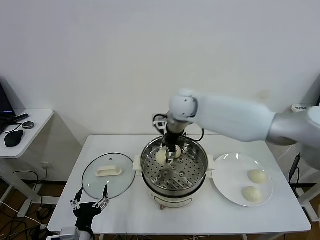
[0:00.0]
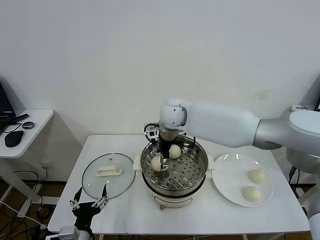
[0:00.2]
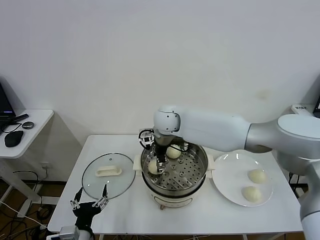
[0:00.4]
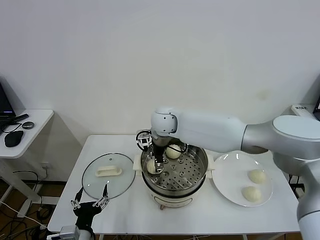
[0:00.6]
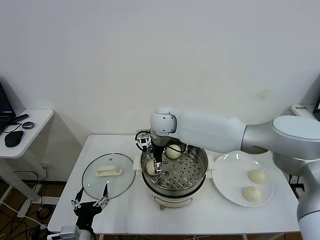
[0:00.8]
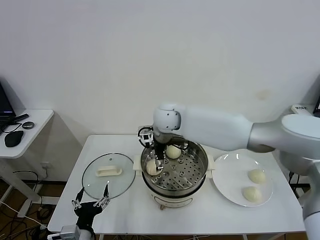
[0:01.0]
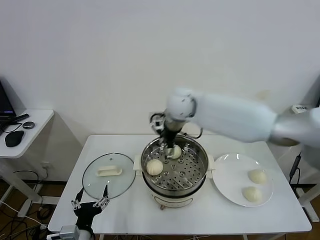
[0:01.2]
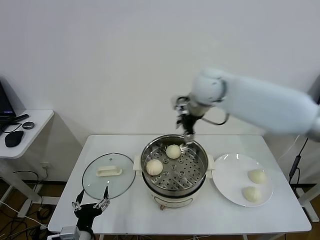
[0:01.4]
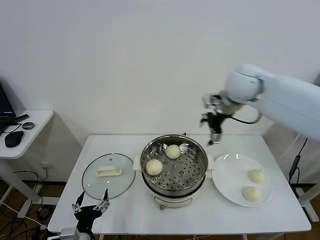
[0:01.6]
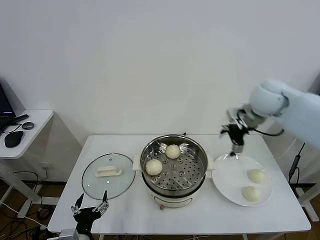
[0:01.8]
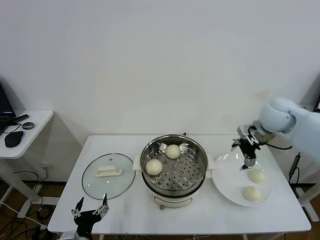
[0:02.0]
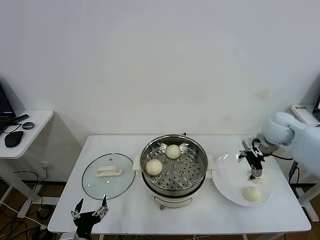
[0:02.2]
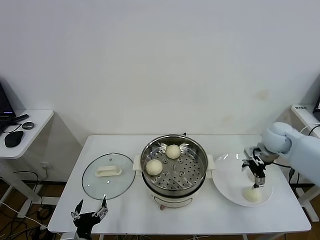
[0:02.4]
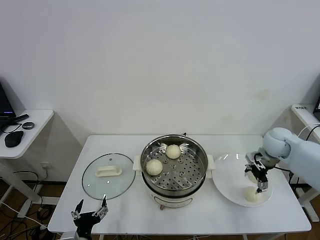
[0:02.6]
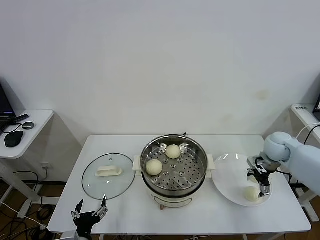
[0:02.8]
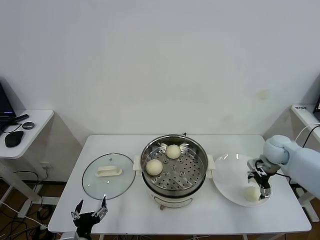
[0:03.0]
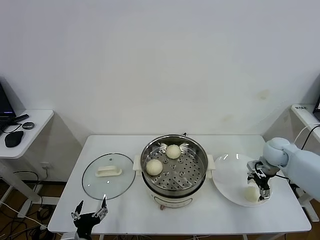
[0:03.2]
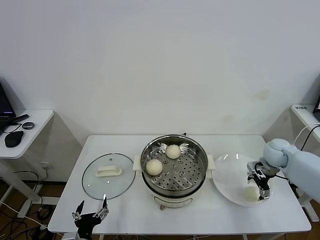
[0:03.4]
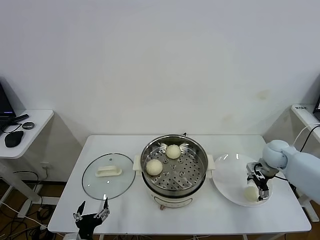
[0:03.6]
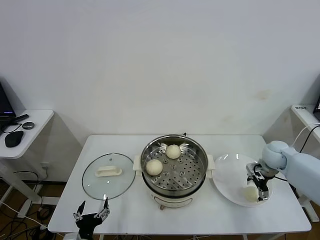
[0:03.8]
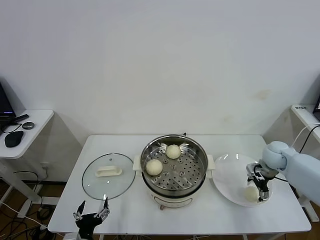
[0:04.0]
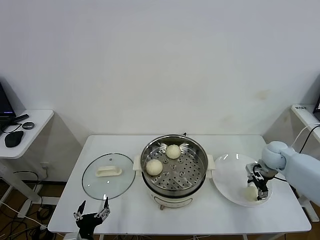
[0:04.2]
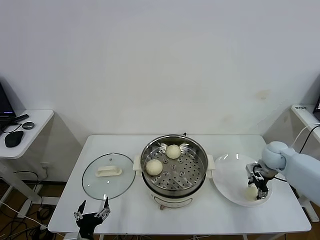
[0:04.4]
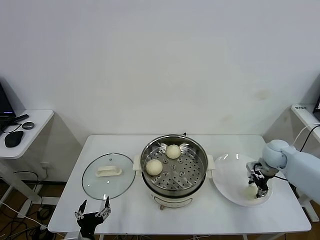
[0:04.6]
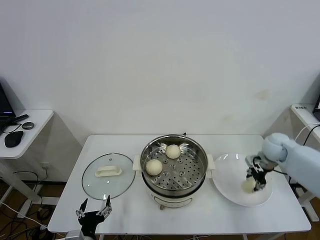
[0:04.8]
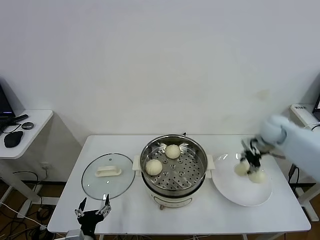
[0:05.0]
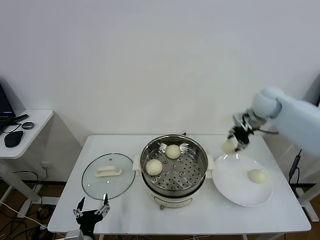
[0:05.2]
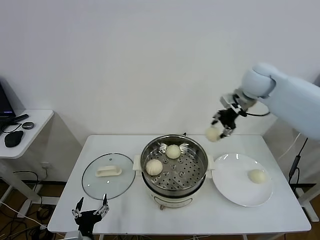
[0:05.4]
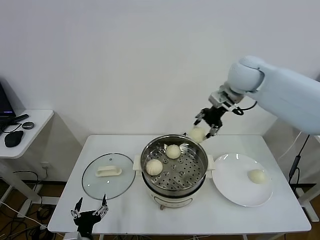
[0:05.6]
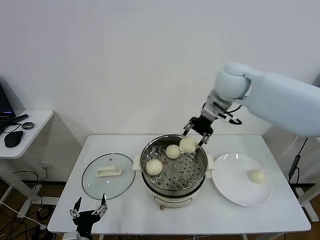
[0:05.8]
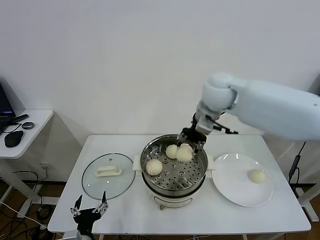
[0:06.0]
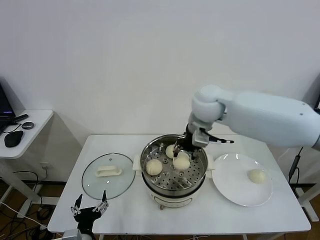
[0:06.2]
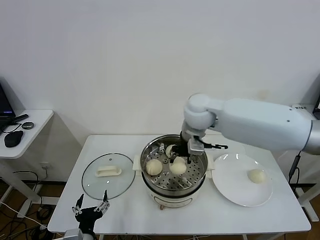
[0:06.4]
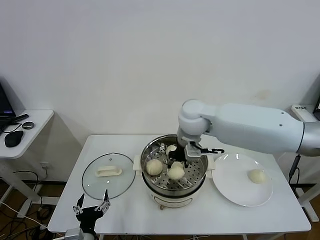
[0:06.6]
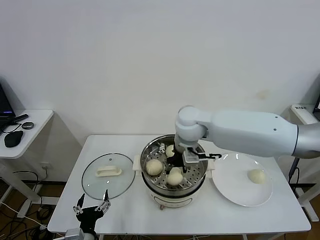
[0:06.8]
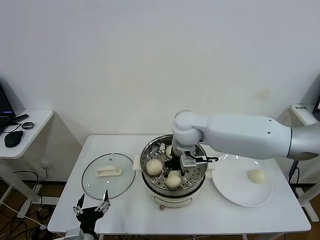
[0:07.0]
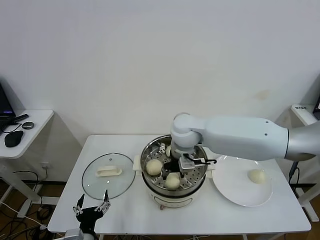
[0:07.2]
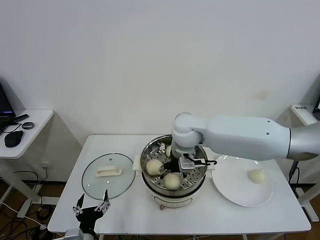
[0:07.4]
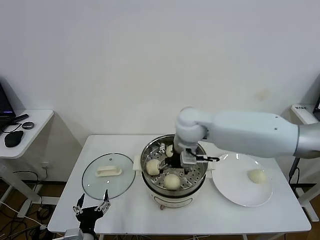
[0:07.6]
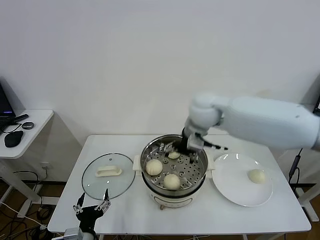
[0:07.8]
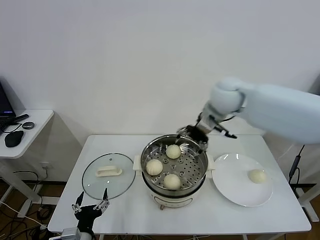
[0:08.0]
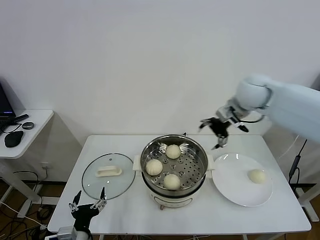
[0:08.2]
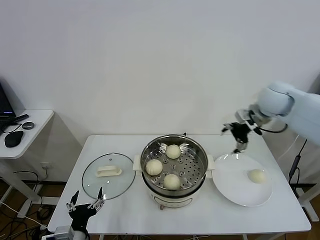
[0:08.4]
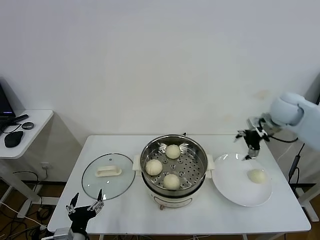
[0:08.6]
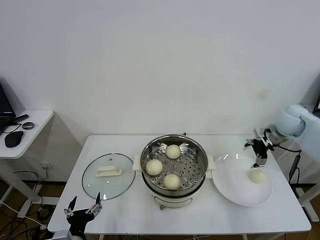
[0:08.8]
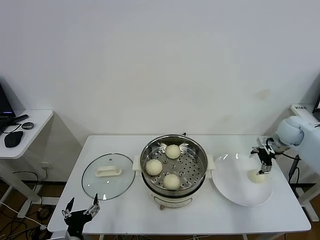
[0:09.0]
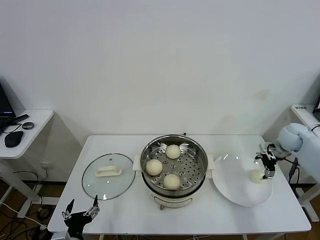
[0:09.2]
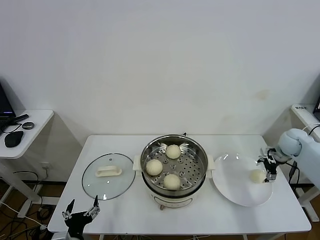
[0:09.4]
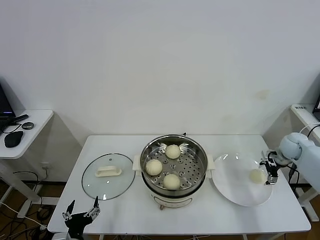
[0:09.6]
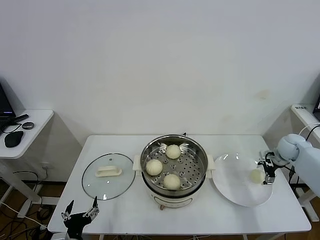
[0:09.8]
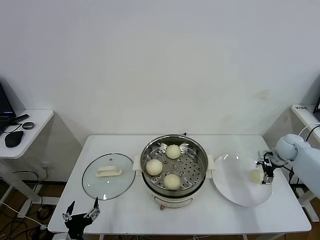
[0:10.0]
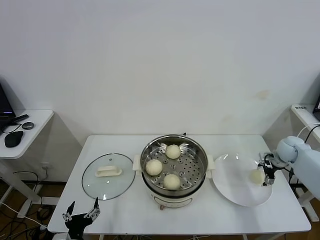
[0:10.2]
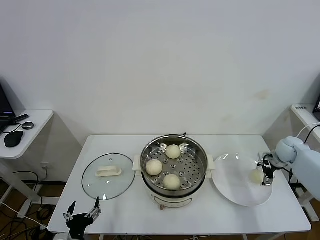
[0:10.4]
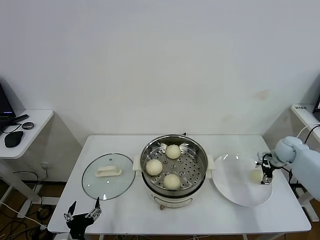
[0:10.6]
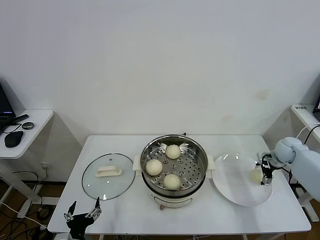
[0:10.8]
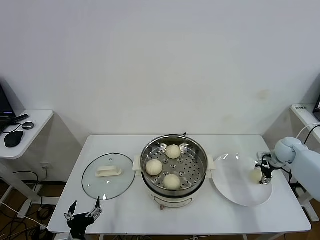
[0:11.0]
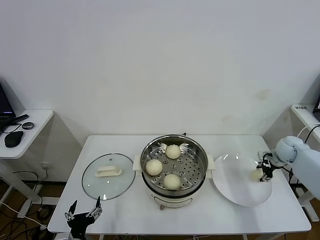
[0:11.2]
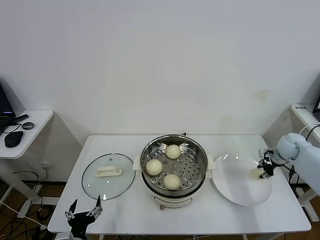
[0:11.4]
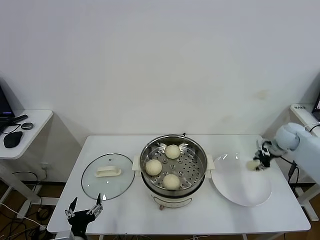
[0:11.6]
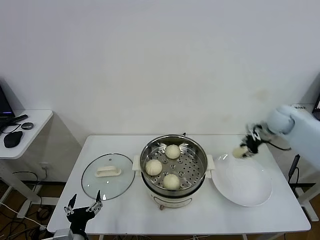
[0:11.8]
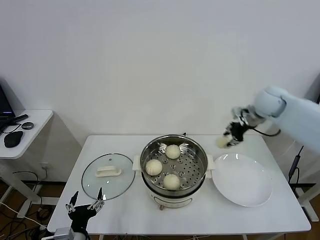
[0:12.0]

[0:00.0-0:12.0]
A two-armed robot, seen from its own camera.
Task of the whole recording: take steamed baozi put them in steamer.
Step, 0:01.2 to 0:04.4: Grasp the baozi in the plate with right gripper.
Step, 0:04.6 to 0:07.6: Place the baozi on the steamer with right gripper.
Step, 0:07.8 to 0:11.2: Grasp the baozi in the plate with right gripper.
0:00.0 to 0:01.6: The right gripper moves to the right and upward, about 20 cm, and opens.
0:01.6 to 0:03.0: The right gripper shifts roughly 30 cm downward and to the right.
0:03.0 to 0:04.4: The right gripper closes.
0:04.4 to 0:06.0: The right gripper goes about 35 cm to the left and upward.
0:06.0 to 0:07.6: The right gripper goes about 10 cm downward and to the left, and opens its fingers.
0:07.6 to 0:09.0: The right gripper heads to the right, covering roughly 35 cm.
0:09.0 to 0:10.4: The right gripper shifts roughly 10 cm downward.
0:10.4 to 0:12.0: The right gripper goes approximately 25 cm upward and to the left, and closes up.

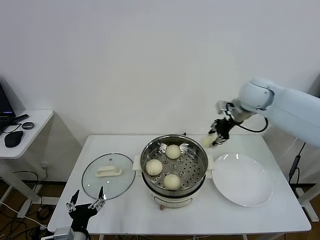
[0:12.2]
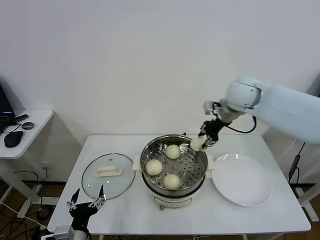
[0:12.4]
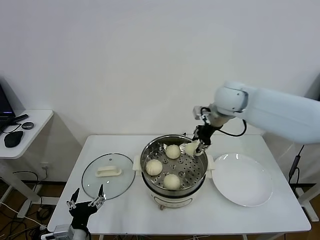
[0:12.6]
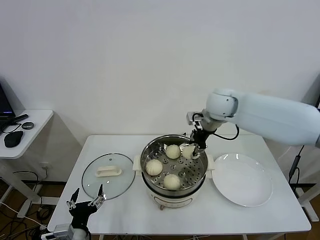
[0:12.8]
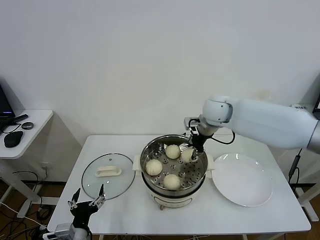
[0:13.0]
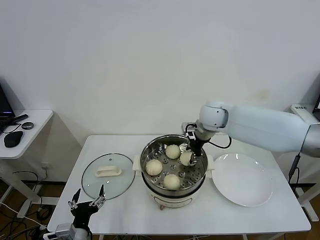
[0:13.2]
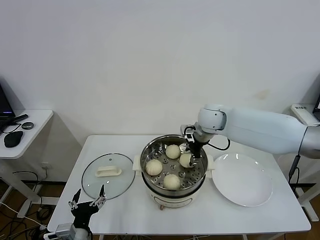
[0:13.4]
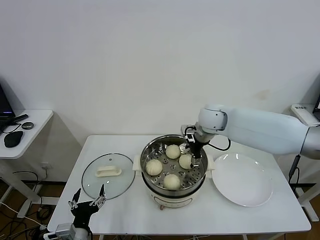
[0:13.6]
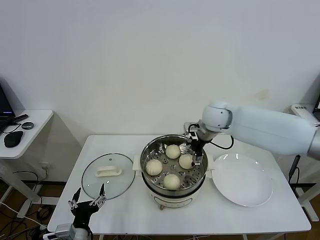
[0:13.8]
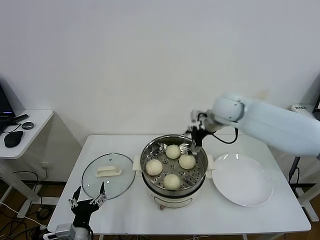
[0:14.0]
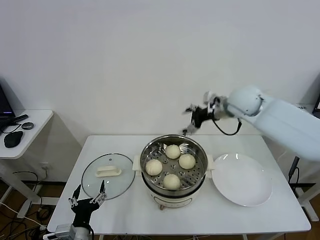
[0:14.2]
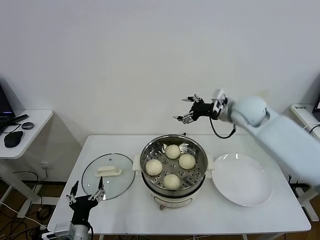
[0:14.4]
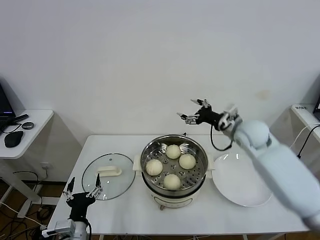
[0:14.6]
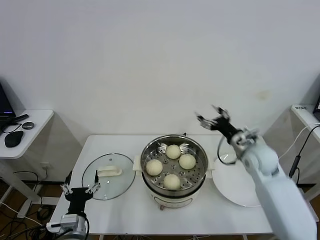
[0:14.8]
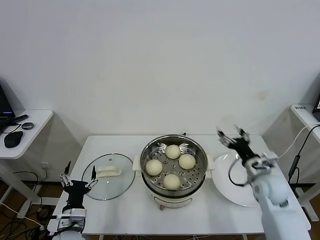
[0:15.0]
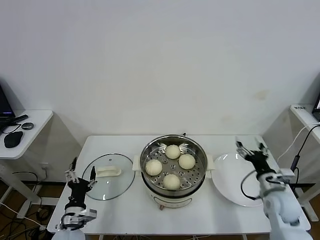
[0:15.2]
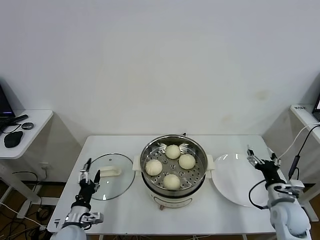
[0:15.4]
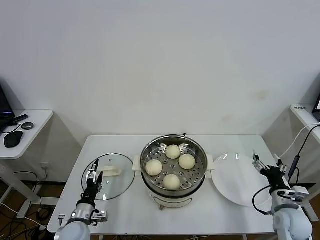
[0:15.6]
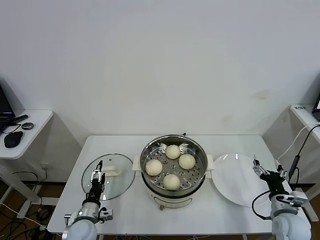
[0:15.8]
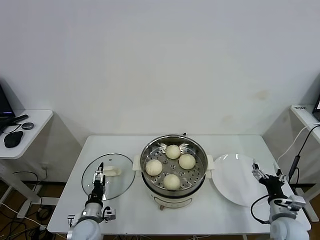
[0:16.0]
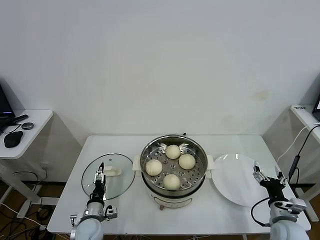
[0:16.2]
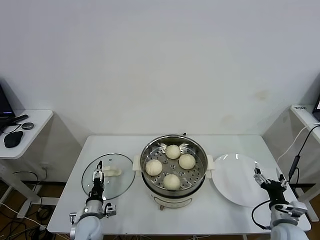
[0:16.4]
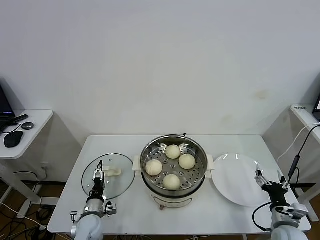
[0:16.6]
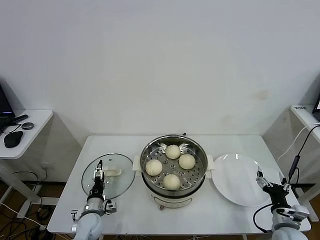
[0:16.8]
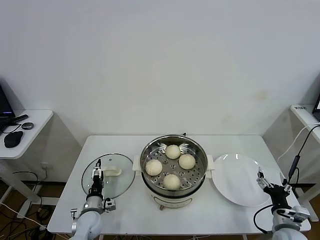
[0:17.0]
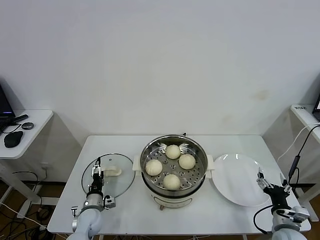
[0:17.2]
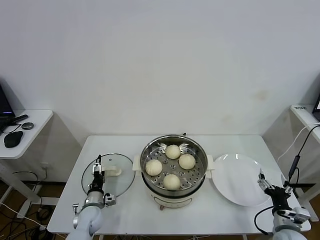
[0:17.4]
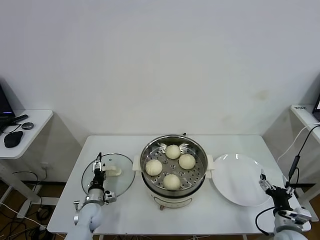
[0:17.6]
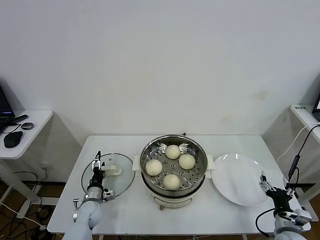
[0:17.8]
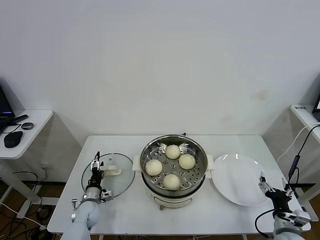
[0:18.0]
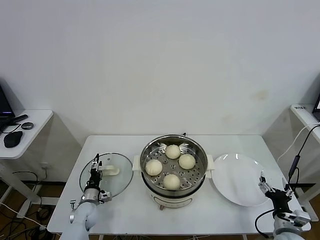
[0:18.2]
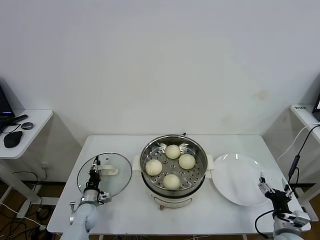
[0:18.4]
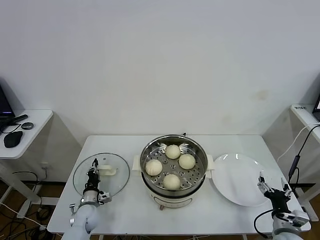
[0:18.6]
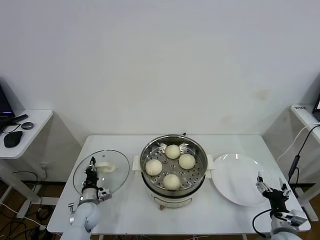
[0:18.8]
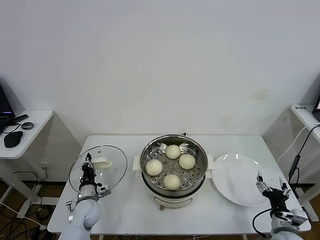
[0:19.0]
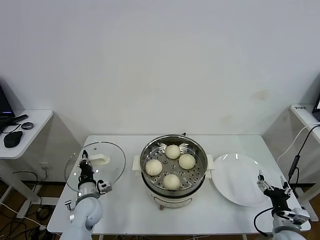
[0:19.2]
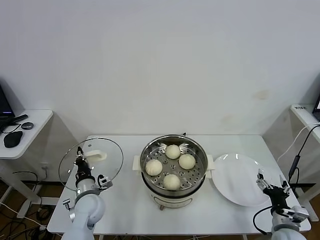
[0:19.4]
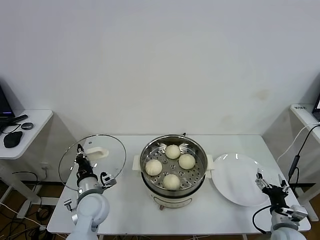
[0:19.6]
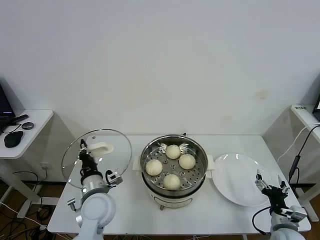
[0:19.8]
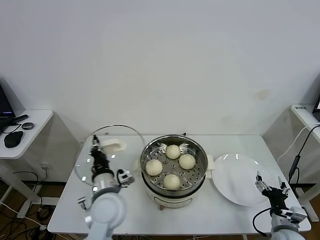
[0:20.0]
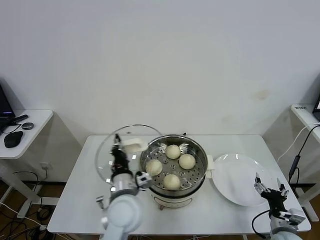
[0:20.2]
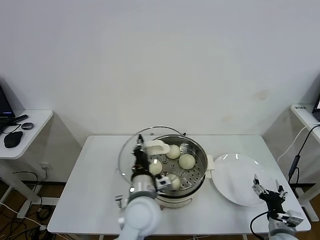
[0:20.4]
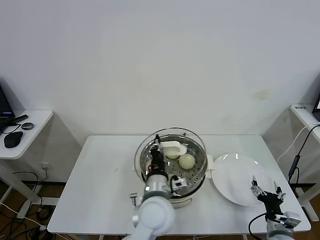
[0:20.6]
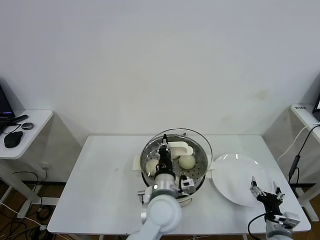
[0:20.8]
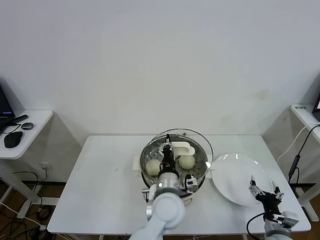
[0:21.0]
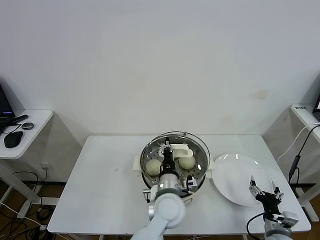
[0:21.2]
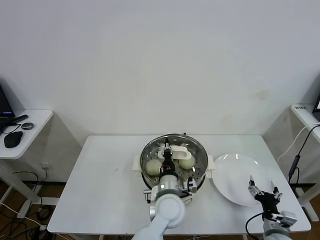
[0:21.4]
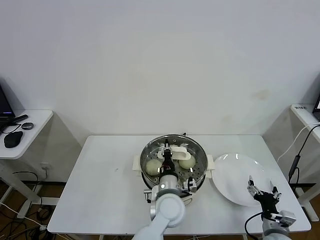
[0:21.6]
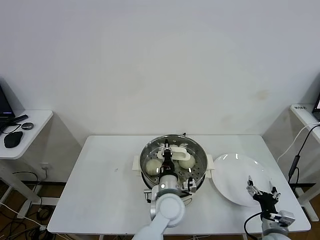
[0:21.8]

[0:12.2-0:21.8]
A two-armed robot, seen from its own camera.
Task of the whole recording: take steamed baozi put them in steamer.
Step, 0:12.2 to 0:13.6: Place the baozi on the steamer with right gripper.
Step, 0:14.0 to 0:18.8: Grasp the pot lid with left gripper.
0:12.2 to 0:13.8: The right gripper is displaced to the left and downward by about 15 cm, and opens.
0:13.8 to 0:15.4: The left gripper heads forward and downward, covering some 10 cm; the right gripper heads backward, to the right and downward, covering roughly 40 cm.
0:15.4 to 0:17.0: The right gripper is displaced backward by roughly 5 cm. The left gripper heads forward and downward, covering about 10 cm.
0:17.0 to 0:18.6: The left gripper moves roughly 5 cm, and closes its fingers.
0:18.6 to 0:20.2: The left gripper heads upward and to the right, covering about 30 cm.
0:20.2 to 0:21.8: The left gripper shifts approximately 15 cm to the right and downward.
